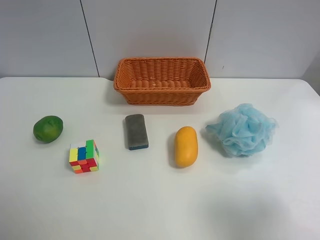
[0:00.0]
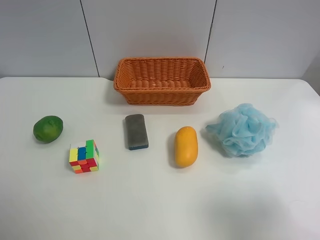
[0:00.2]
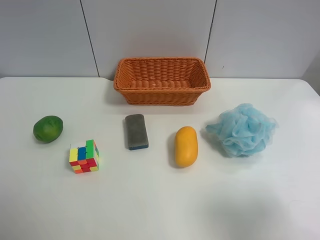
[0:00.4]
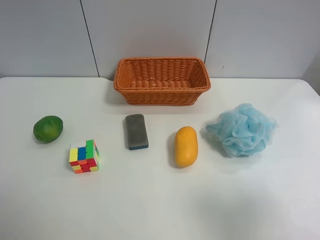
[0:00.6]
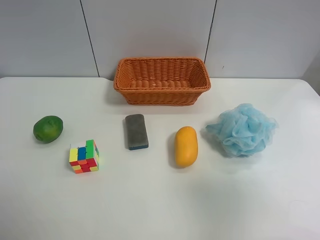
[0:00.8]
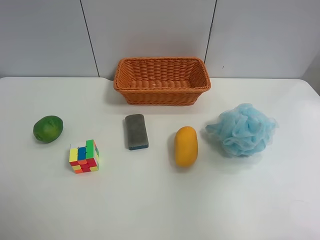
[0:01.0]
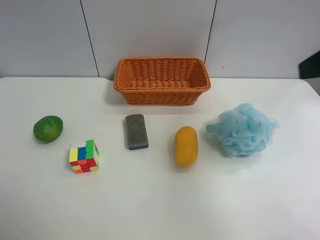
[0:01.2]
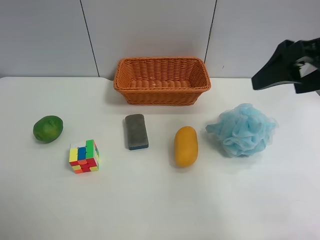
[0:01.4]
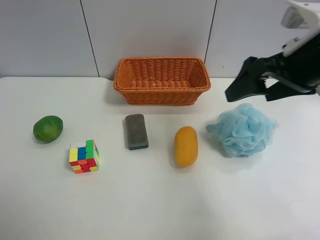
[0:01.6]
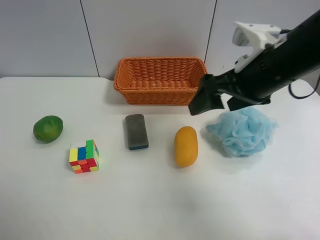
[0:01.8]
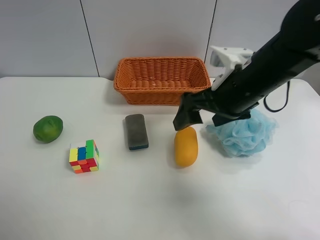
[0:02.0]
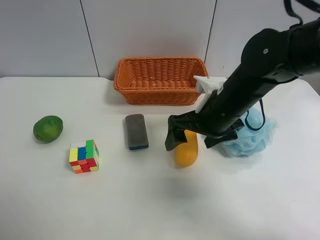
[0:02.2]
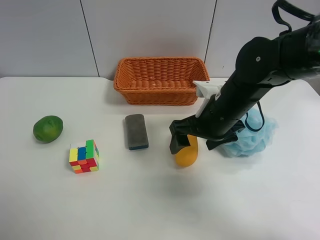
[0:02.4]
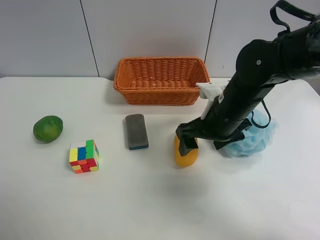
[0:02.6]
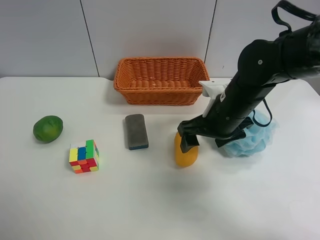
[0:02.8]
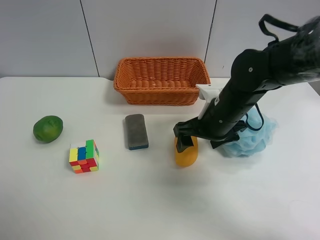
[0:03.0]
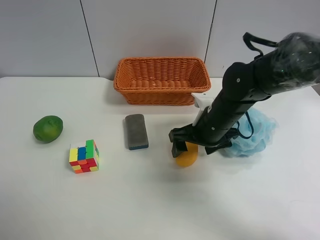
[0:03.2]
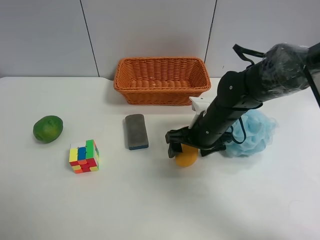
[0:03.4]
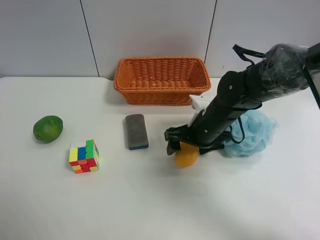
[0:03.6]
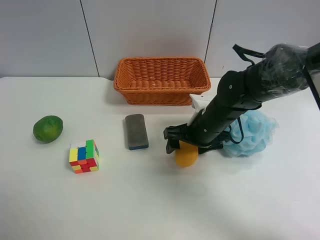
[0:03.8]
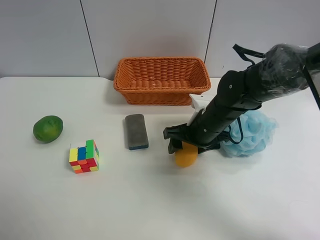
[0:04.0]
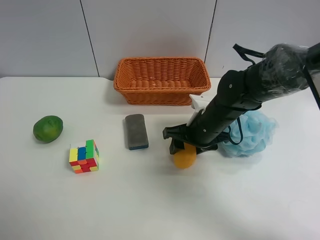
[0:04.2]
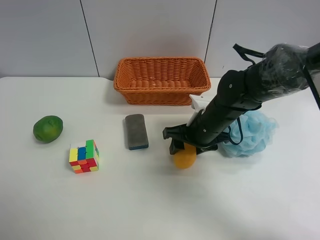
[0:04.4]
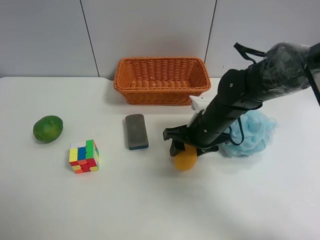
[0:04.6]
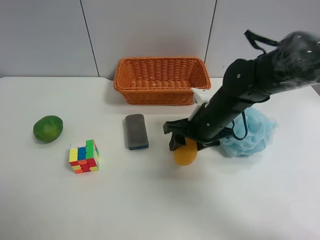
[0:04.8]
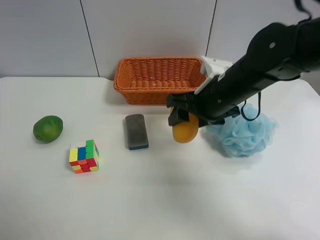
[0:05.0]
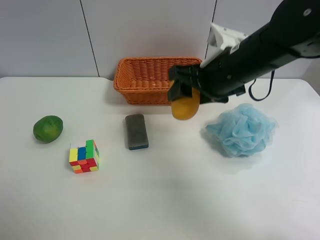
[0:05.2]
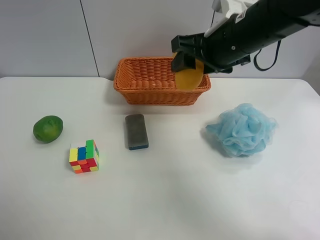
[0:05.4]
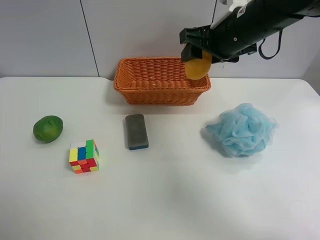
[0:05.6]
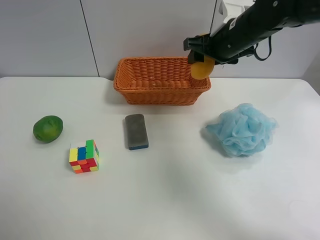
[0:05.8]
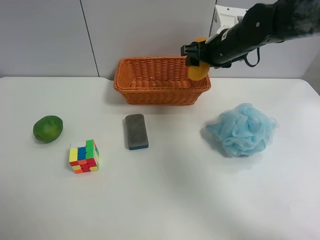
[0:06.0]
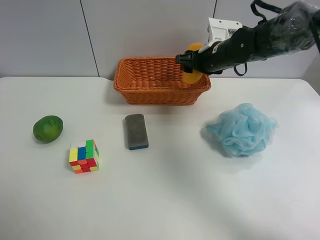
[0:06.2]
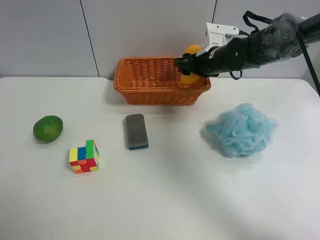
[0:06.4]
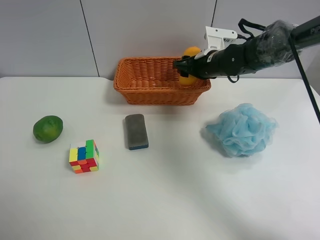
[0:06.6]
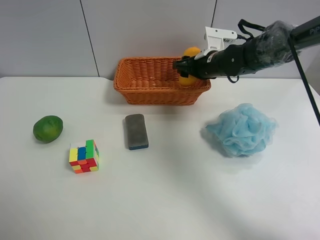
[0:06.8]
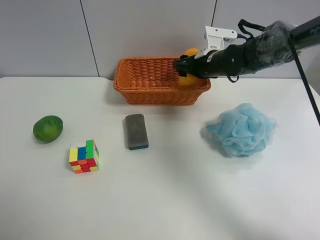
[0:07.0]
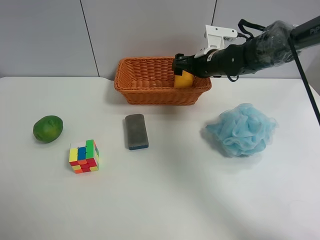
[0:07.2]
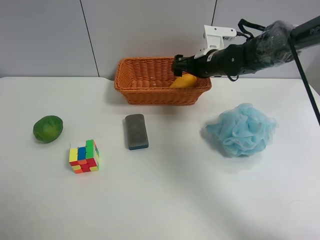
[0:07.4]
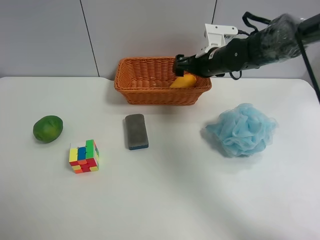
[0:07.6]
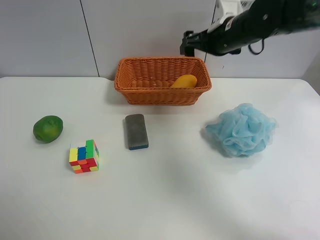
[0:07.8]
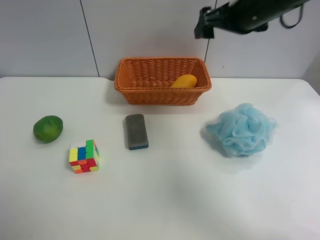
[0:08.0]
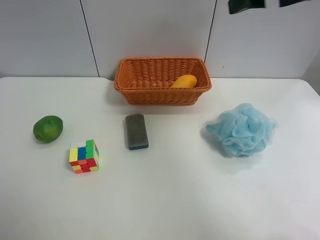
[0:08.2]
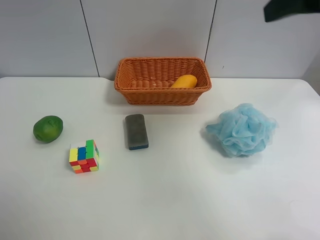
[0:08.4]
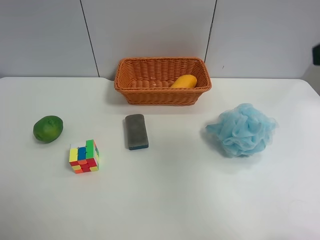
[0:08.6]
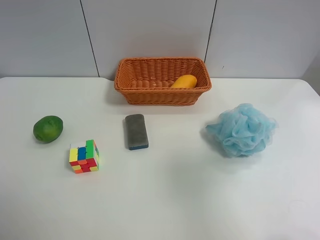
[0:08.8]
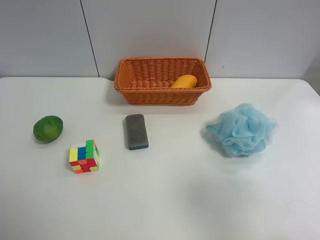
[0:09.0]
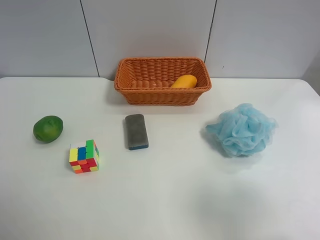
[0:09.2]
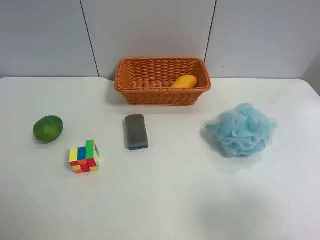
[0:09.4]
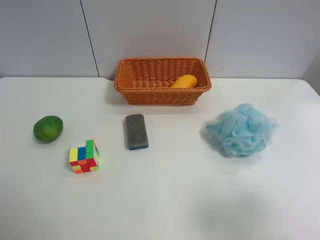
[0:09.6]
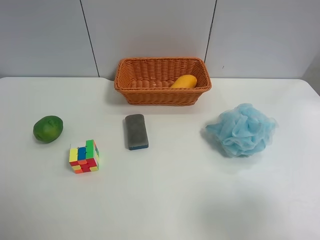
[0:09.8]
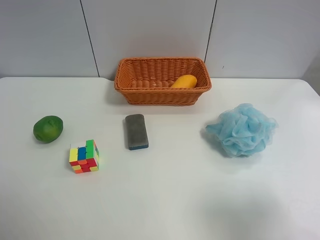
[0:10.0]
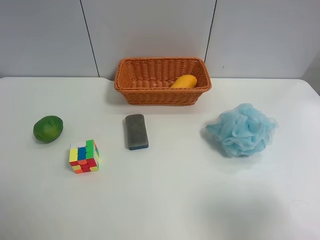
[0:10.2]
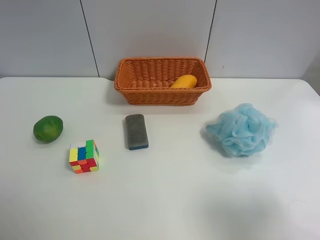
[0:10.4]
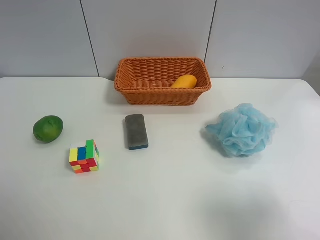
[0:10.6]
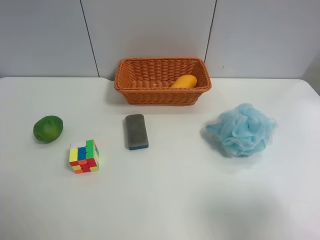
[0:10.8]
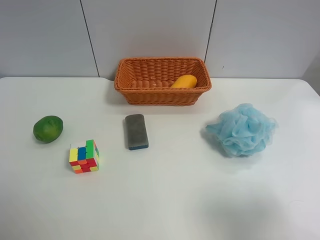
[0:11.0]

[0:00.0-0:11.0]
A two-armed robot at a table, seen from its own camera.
Task of the whole recording: Randomly grab green lemon or mangoes from the table and put them in a basket.
Step, 0:00.0 to 0:04.2: Grasp the mango with the right gripper.
Step, 0:04.4 to 0:07.8: Place the mango into the basket with the right gripper.
0:00.0 to 0:01.6: The right gripper moves forward, some 25 cm.
0:01.6 to 0:03.2: The right gripper is displaced downward and to the left by some 20 cm.
0:03.2 to 0:04.8: The right gripper closes its fingers.
0:04.8 to 0:06.2: The right gripper shifts approximately 15 cm forward.
0:06.2 to 0:07.8: The right gripper goes roughly 10 cm upward, and opens up.
0:07.8 to 0:09.4: The right gripper shifts roughly 40 cm backward.

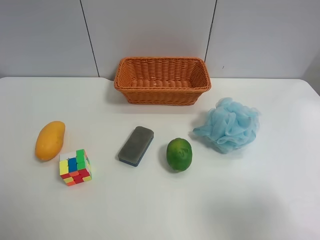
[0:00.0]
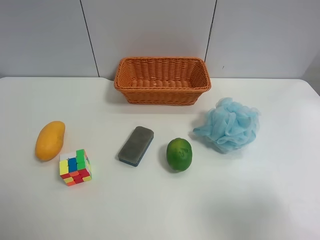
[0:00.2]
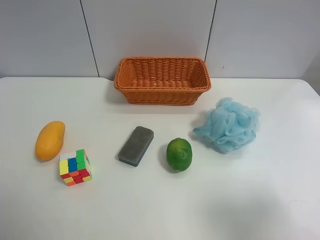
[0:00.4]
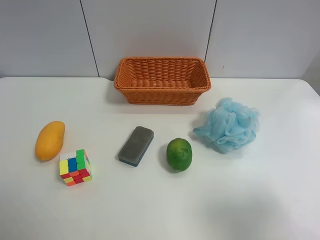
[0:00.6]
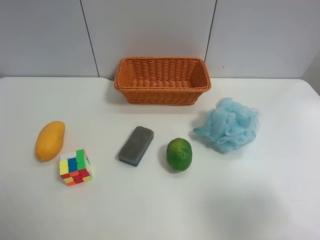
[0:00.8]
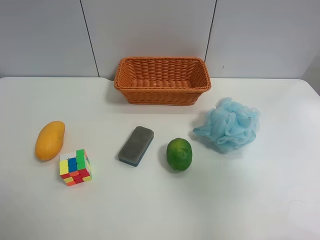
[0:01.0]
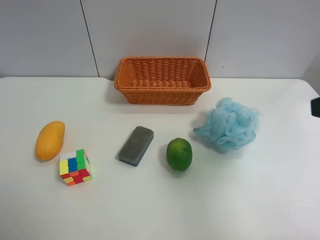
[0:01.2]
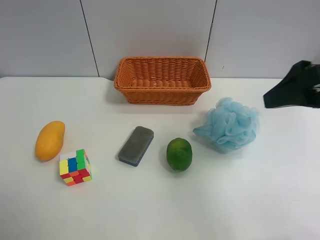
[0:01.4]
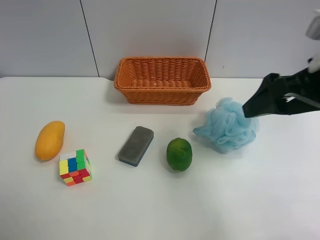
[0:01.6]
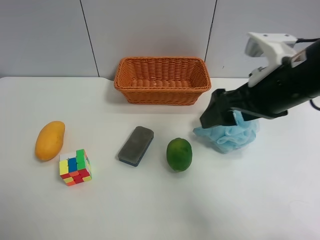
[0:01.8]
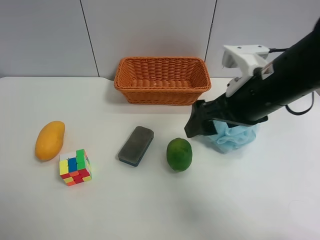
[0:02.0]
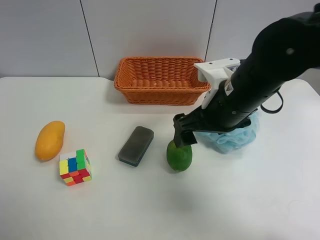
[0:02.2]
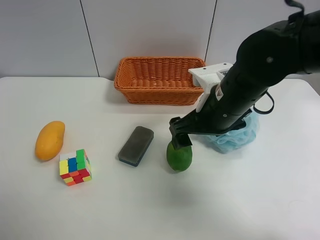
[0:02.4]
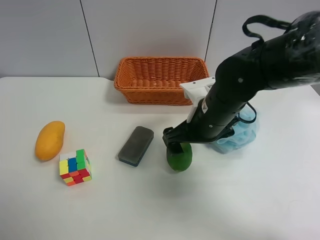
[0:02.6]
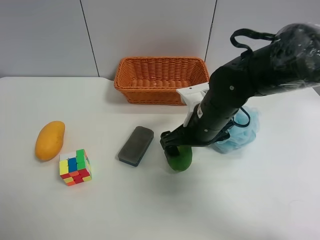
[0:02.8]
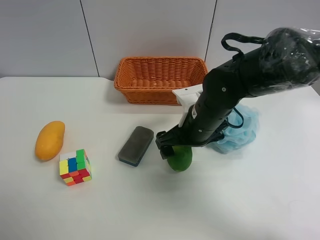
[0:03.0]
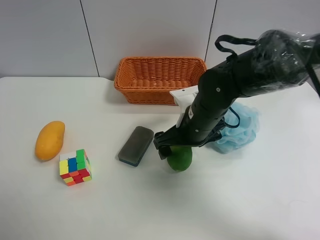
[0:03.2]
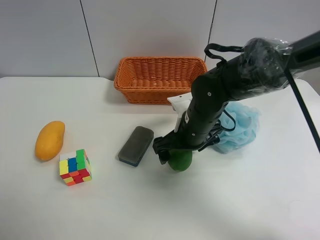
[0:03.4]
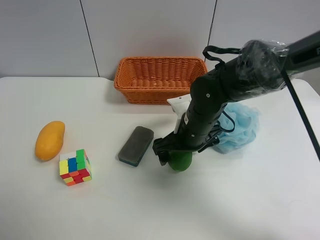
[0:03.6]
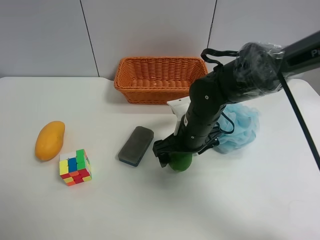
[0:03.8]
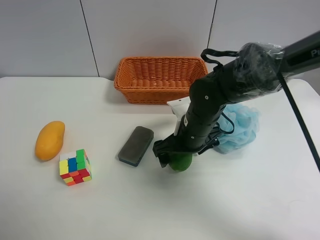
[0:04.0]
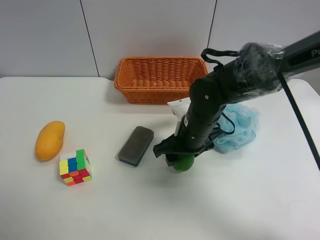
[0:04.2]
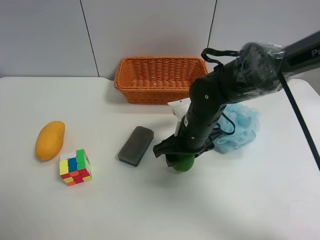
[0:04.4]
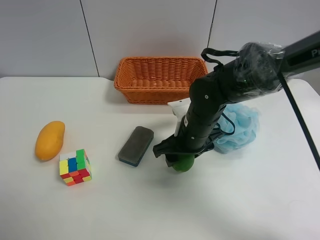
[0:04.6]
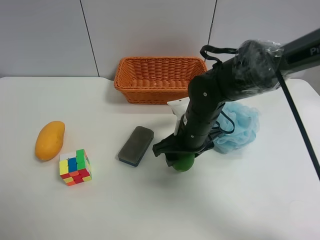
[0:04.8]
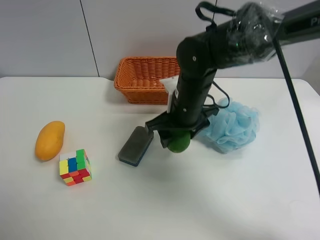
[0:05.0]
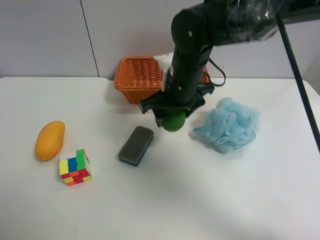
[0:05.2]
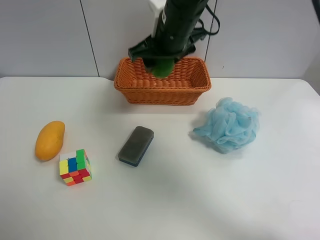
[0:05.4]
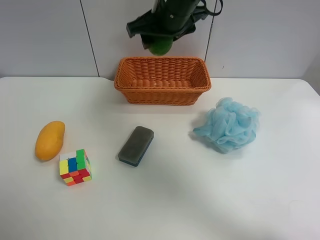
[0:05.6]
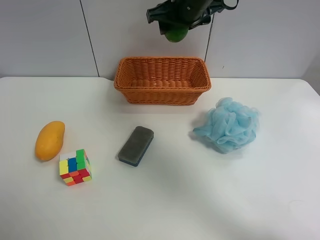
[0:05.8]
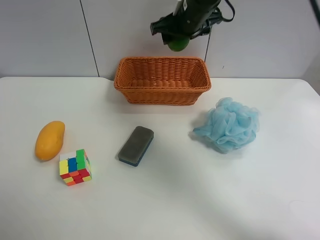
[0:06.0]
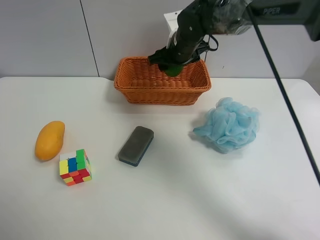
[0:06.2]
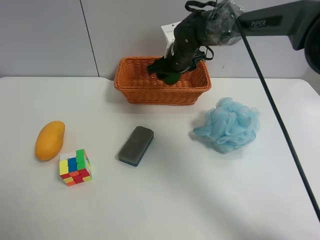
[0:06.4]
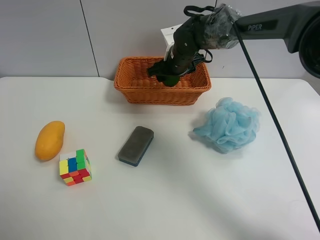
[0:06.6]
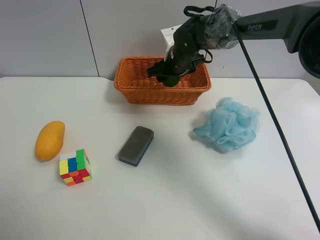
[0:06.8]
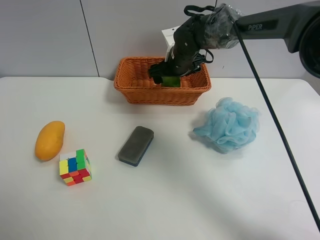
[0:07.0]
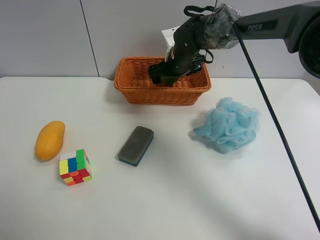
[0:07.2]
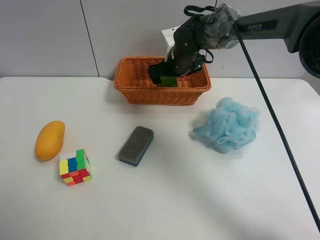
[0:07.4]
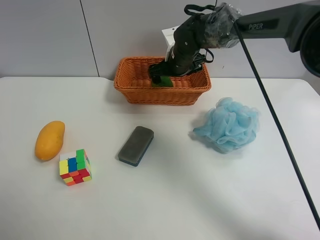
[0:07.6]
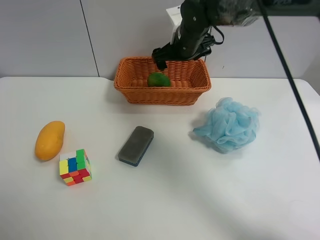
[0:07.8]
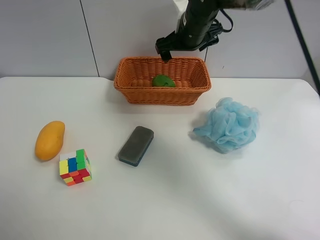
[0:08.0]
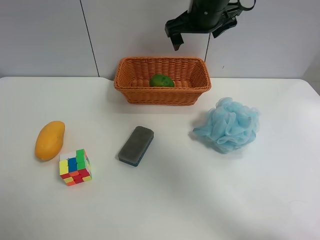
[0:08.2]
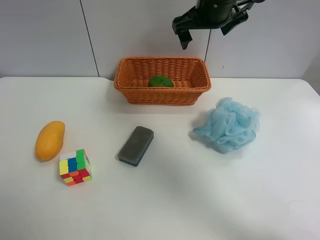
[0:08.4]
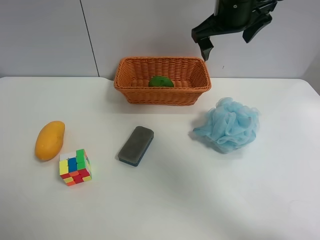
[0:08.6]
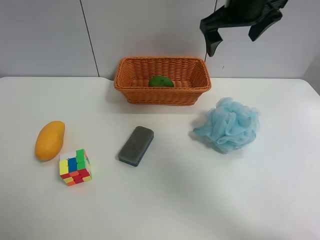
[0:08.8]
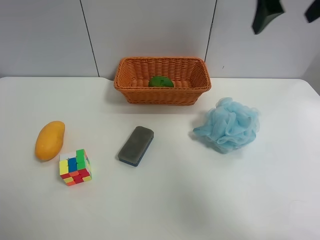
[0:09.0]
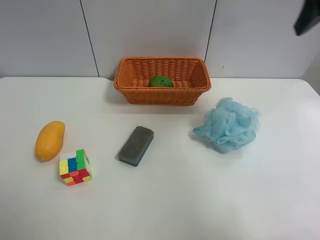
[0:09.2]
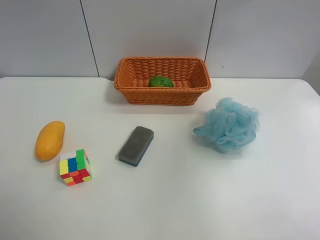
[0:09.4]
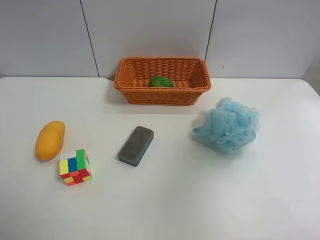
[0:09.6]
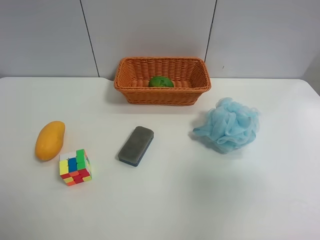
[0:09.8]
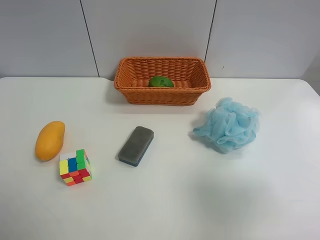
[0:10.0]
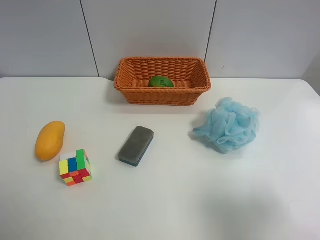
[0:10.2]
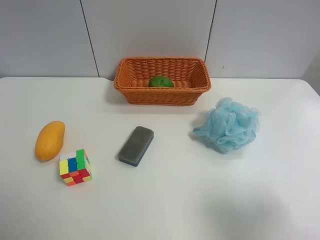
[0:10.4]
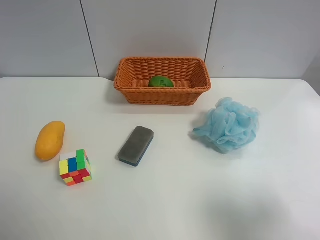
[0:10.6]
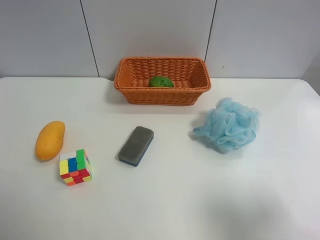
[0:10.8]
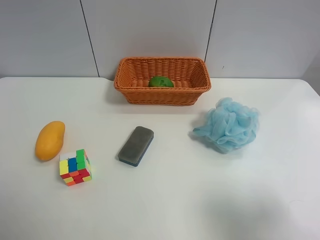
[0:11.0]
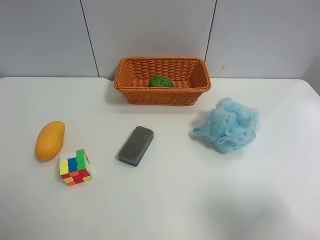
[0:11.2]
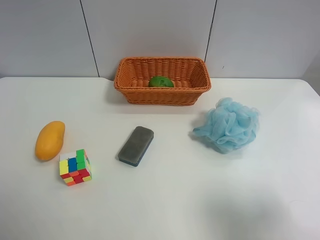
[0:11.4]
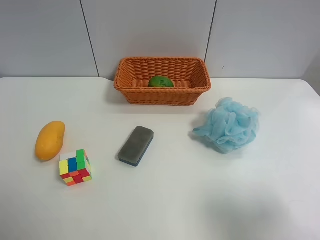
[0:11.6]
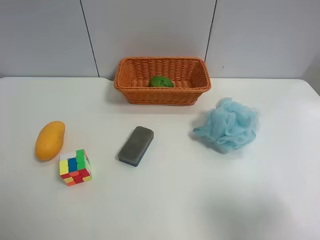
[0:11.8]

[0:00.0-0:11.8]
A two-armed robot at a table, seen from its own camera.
Task of the whole recording: Randomly grab green lemon or mangoes from the table and put them in a basket.
Step, 0:00.0 to 0:04.2: Grasp the Lemon with the right gripper.
Step, 0:04.4 to 0:08.0: Place the Lemon into the basket with the right gripper.
0:00.0 to 0:01.4: The right gripper moves forward, about 15 cm.
0:01.4 to 0:03.0: The right gripper travels downward, to the left and forward by roughly 25 cm.
0:03.0 to 0:04.4: The right gripper closes.
0:04.4 to 0:06.0: The right gripper is displaced forward and upward by approximately 20 cm.
0:06.0 to 0:07.4: The right gripper heads downward, covering roughly 10 cm, and opens its fingers.
0:07.4 to 0:08.8: The right gripper shifts some 25 cm upward, backward and to the right.
0:08.8 to 0:10.4: The right gripper travels backward by roughly 35 cm.
0:10.4 to 0:11.8: Both grippers stay about where they are.
